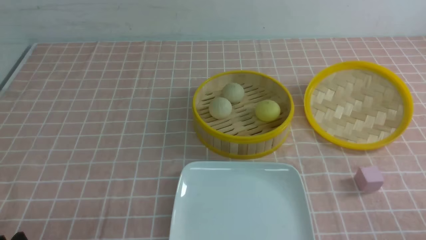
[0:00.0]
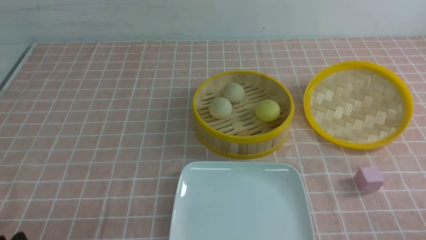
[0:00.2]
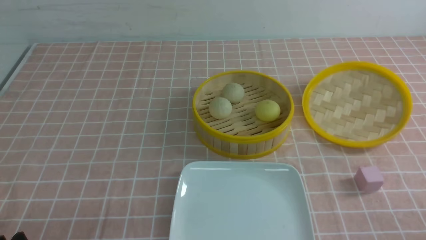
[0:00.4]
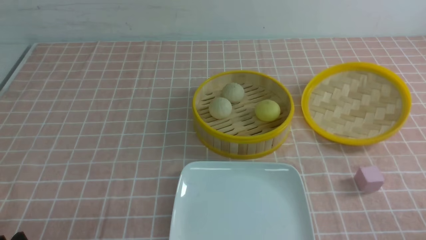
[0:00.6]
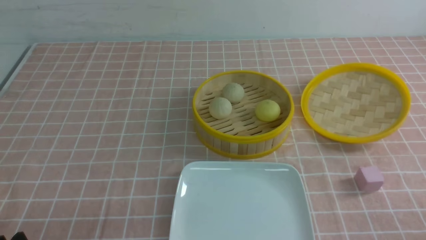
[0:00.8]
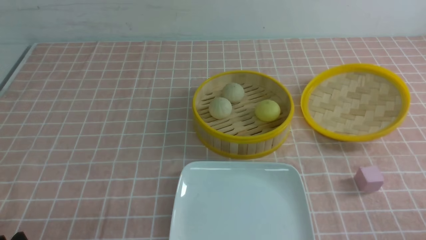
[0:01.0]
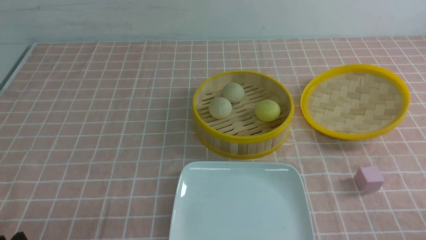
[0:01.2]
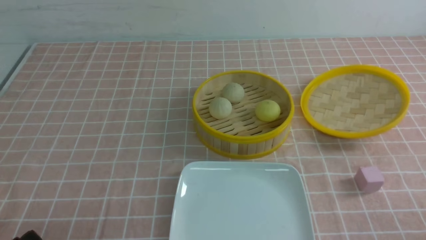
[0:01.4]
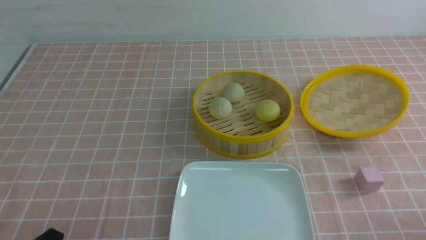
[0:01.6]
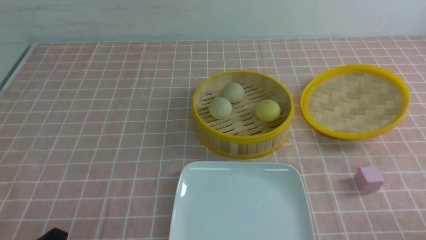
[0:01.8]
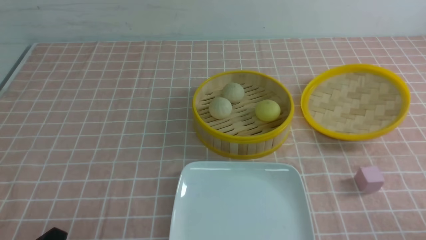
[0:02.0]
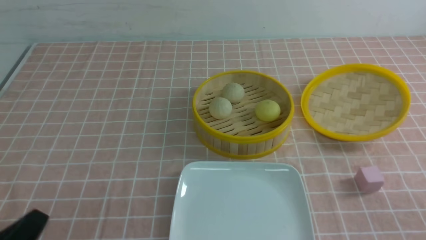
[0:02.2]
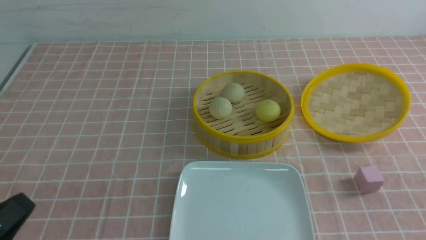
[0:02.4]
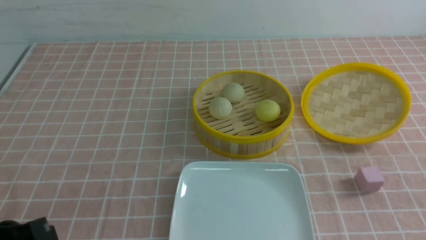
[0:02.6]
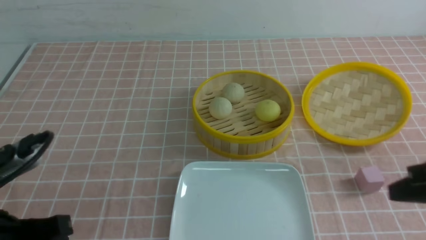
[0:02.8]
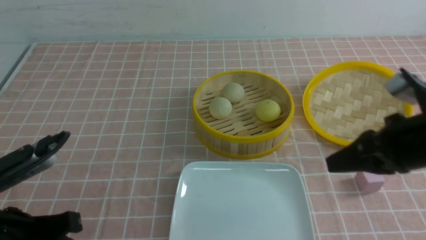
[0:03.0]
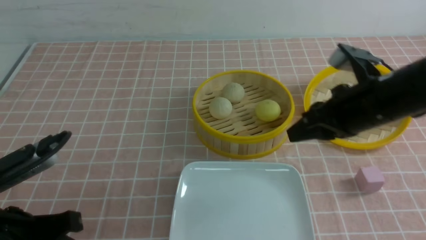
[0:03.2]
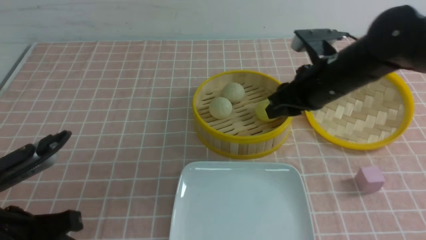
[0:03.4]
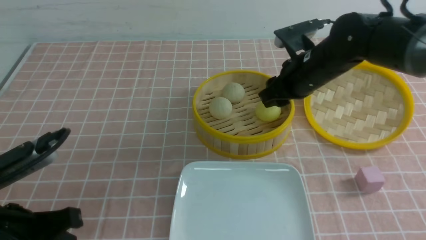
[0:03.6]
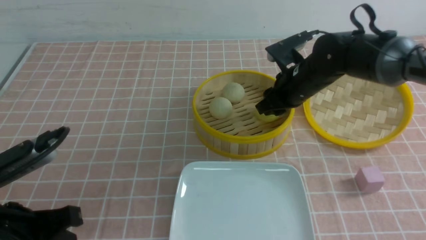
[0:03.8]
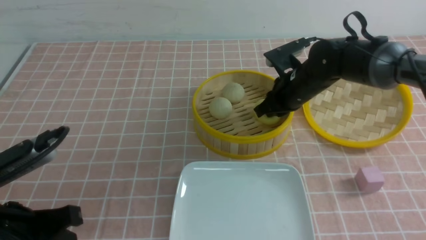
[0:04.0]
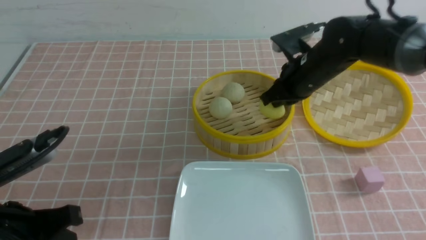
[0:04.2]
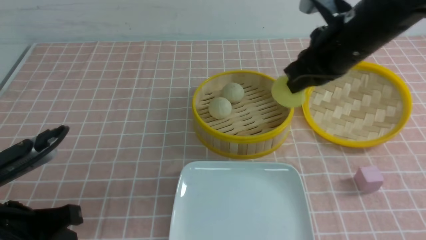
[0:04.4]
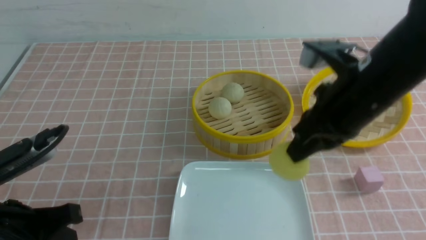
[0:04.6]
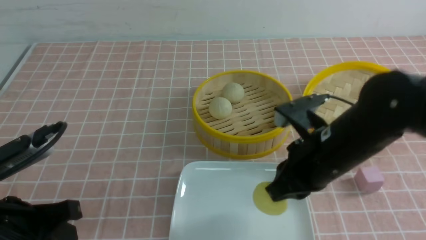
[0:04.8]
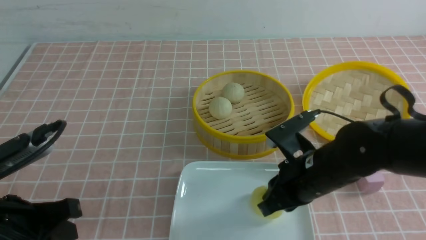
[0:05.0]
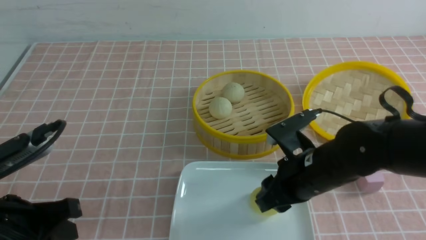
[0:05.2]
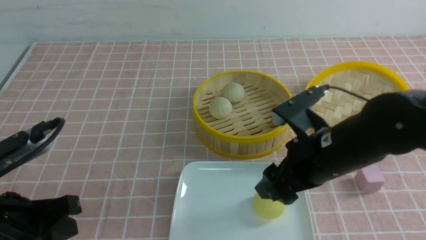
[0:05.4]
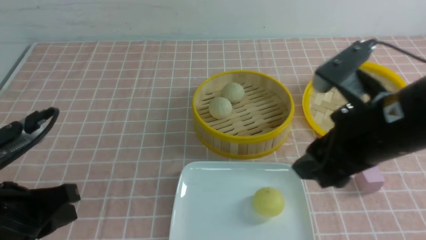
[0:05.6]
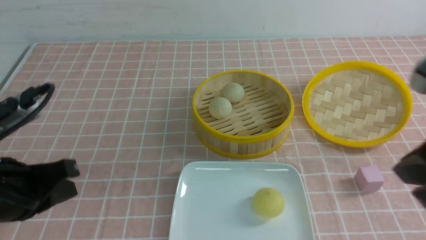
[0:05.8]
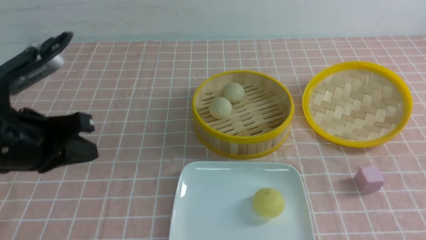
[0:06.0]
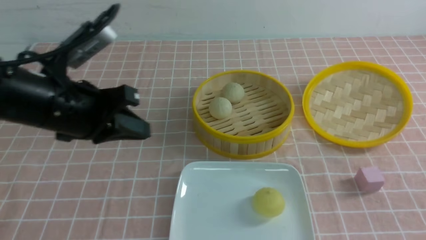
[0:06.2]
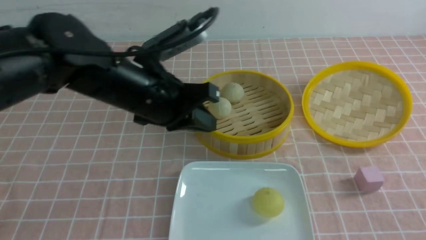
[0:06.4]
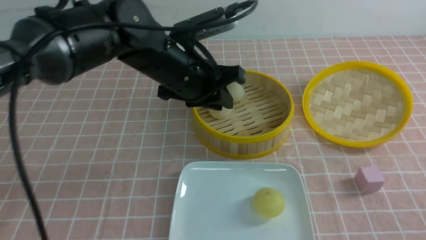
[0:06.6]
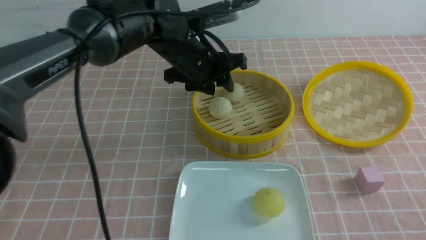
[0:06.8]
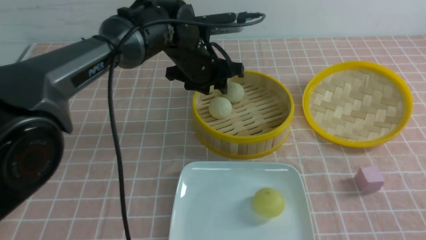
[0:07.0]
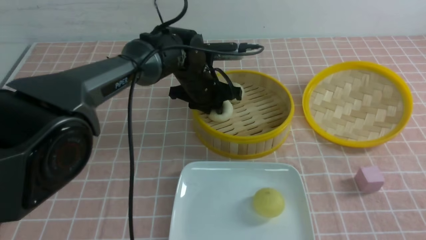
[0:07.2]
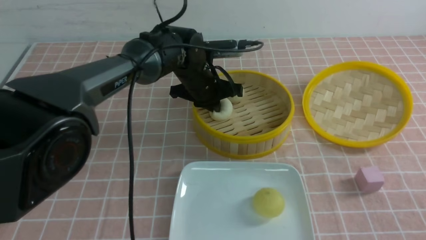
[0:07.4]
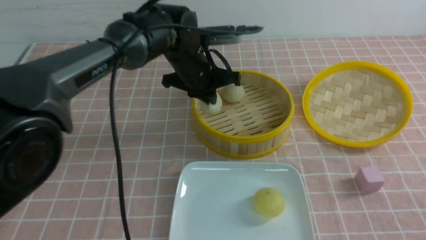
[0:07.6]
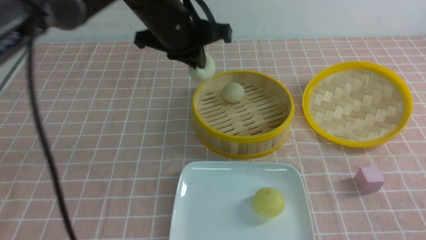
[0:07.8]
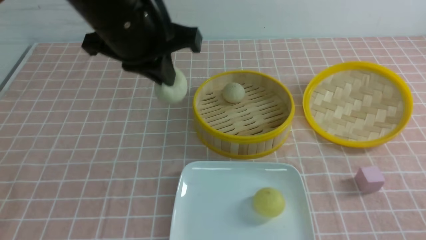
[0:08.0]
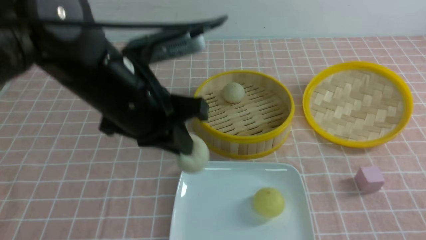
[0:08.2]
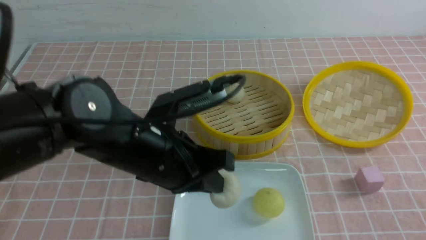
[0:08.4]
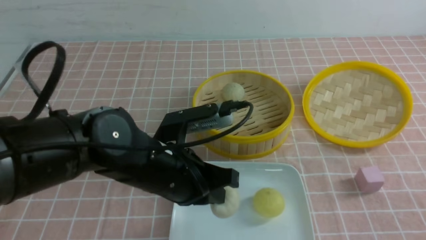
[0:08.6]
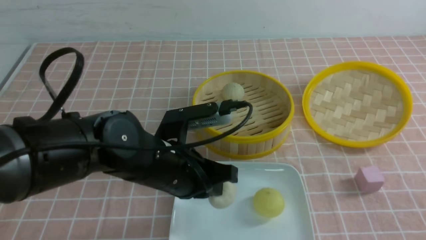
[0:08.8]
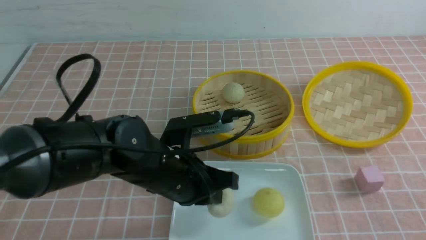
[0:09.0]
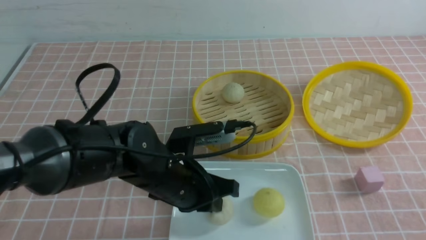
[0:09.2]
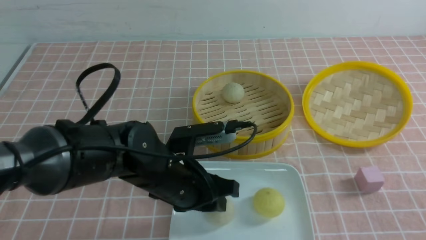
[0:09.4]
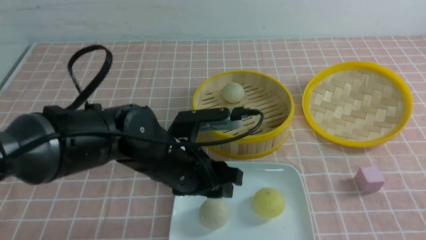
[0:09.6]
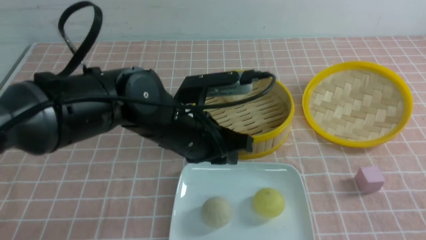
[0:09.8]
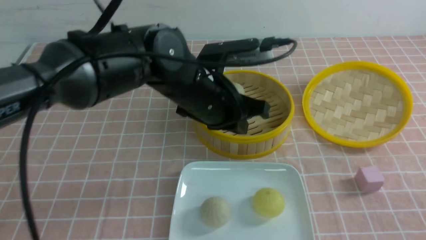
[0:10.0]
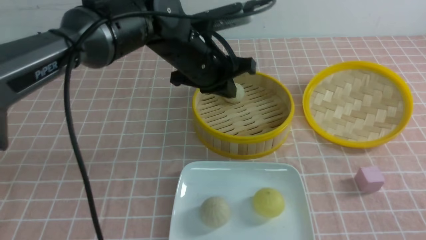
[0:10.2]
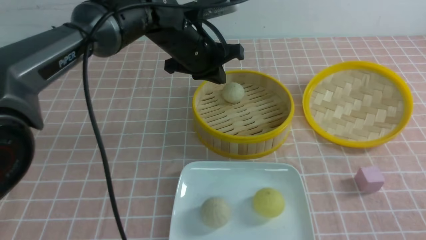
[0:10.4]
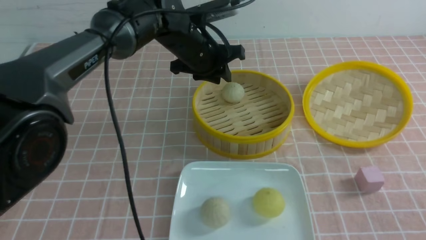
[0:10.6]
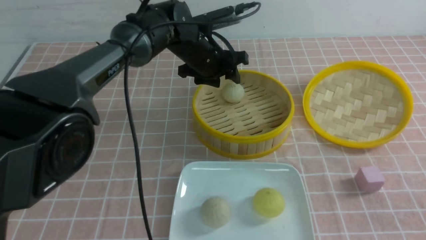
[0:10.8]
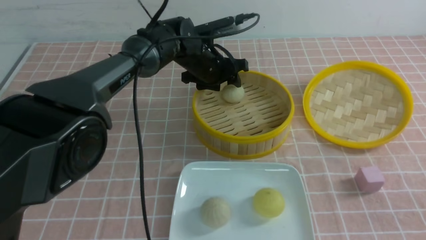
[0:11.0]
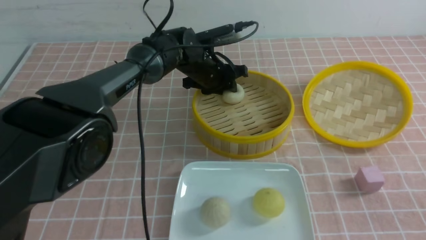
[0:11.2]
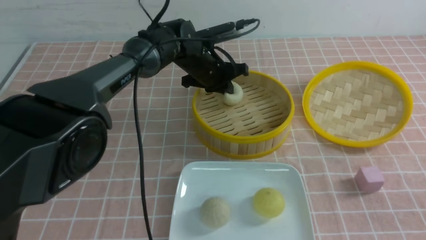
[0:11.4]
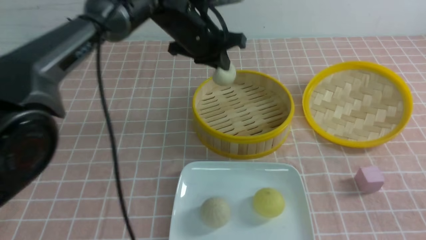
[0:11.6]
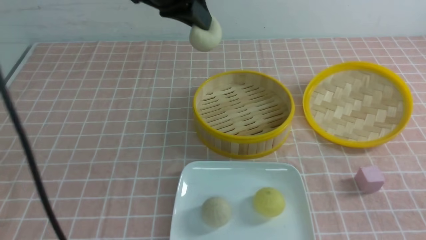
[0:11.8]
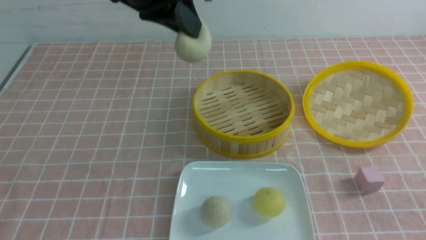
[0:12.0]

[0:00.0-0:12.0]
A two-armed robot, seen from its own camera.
Step, 0:00.0 to 0:04.0: use the right arm to grab the steamed stuffed bun that is closest to it.
Step, 0:04.2 to 0:05.2: use the right arm to put the steamed stuffed bun into the plate.
Step, 0:05.6 to 0:07.4: use the left arm to grab the steamed stuffed bun that is closest to it.
Step, 0:07.6 to 0:09.6: use the left arm to put the steamed stuffed bun into the plate.
Step, 0:09.8 to 0:11.2: use the left arm to grab the steamed stuffed bun that is closest to it.
0:01.6 to 0:03.0: The right gripper is displaced forward, upward and to the left by roughly 25 cm, and closes. The left gripper shifts some 10 cm upward and forward, and closes.
0:03.0 to 0:04.4: The right gripper moves forward and to the left, about 10 cm, and opens, then closes again.
0:04.4 to 0:06.0: The right gripper shifts some 25 cm backward and to the right, and opens and closes again, while the left gripper heads forward and upward, covering about 10 cm.
0:06.0 to 0:07.6: The right gripper is displaced downward by some 10 cm. The left gripper shifts roughly 25 cm forward and to the right, and opens and closes again.
0:07.6 to 0:09.0: The left gripper is displaced backward and downward by roughly 20 cm.
0:09.0 to 0:10.4: The left gripper shifts about 20 cm forward and upward, and opens, then closes again.
0:10.4 to 0:12.0: The left gripper is displaced upward and backward by roughly 15 cm, and opens, then closes again.

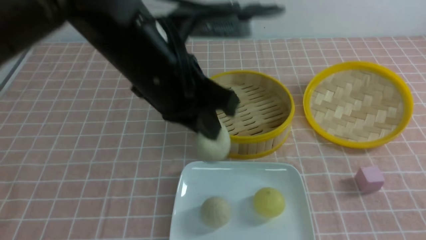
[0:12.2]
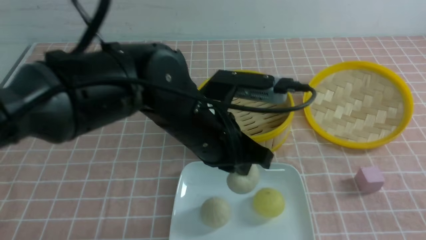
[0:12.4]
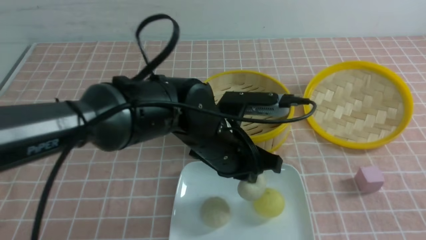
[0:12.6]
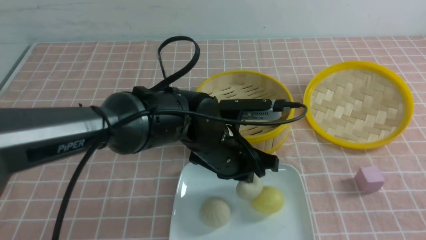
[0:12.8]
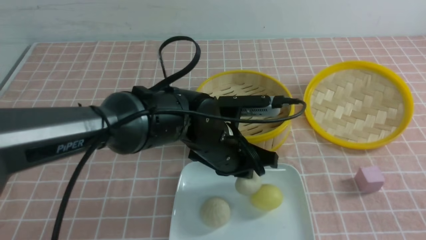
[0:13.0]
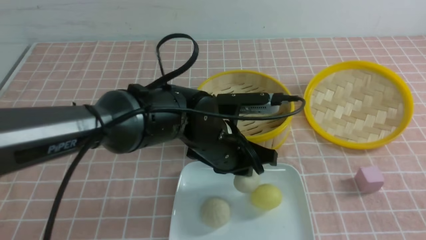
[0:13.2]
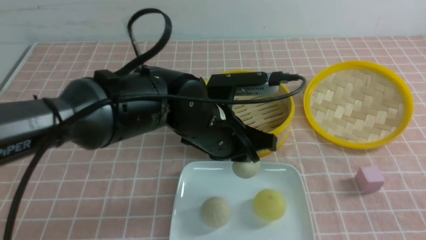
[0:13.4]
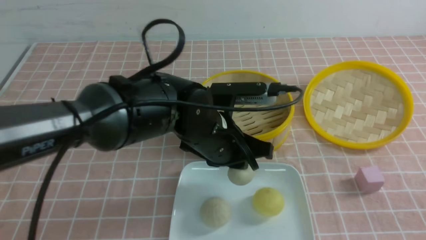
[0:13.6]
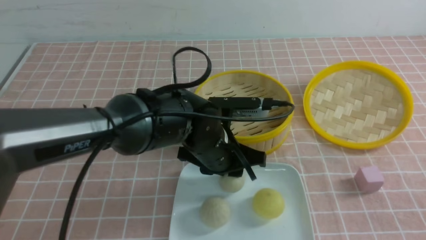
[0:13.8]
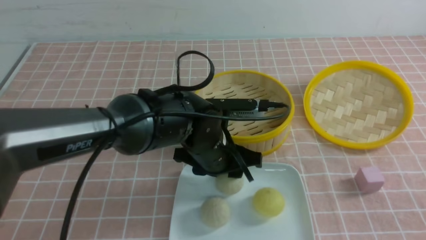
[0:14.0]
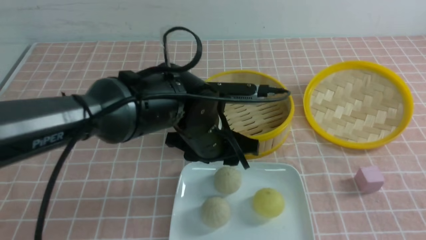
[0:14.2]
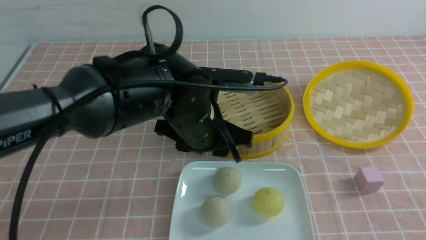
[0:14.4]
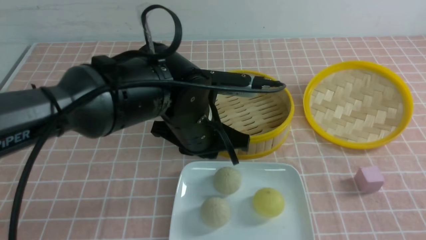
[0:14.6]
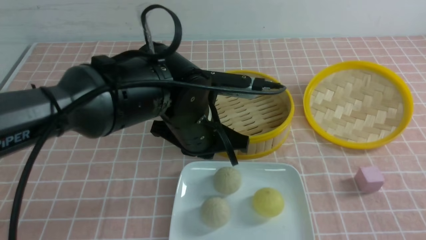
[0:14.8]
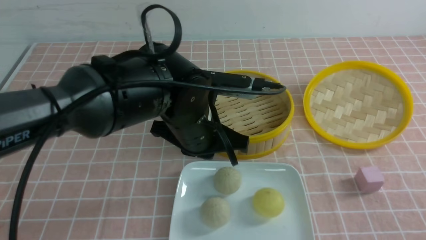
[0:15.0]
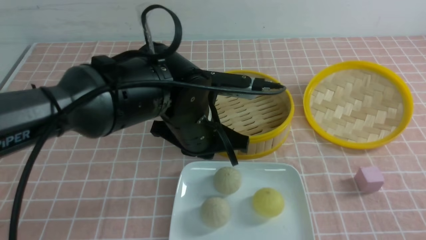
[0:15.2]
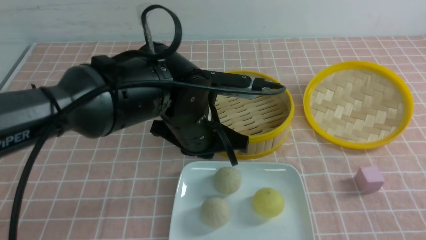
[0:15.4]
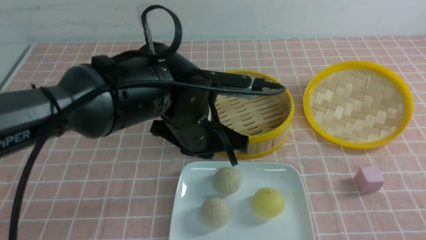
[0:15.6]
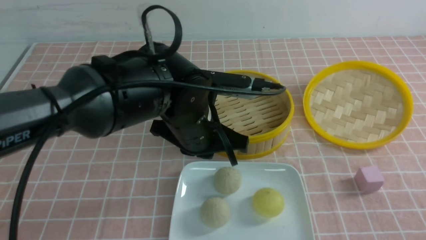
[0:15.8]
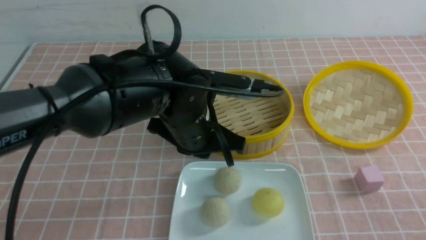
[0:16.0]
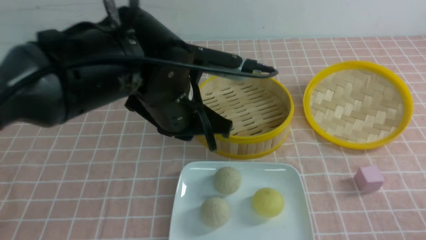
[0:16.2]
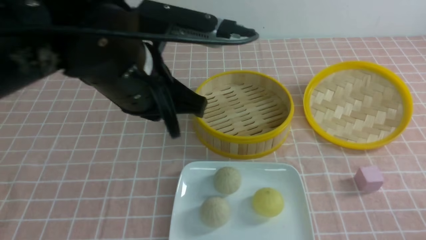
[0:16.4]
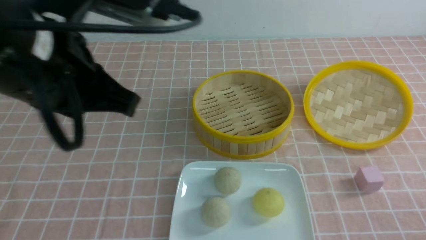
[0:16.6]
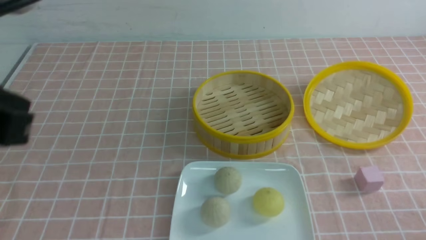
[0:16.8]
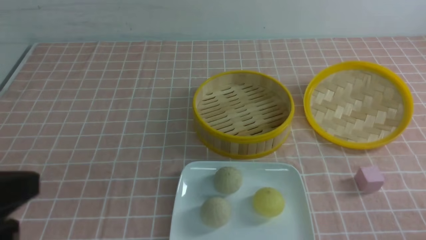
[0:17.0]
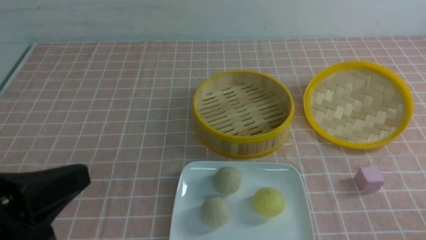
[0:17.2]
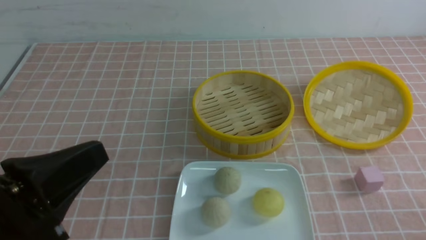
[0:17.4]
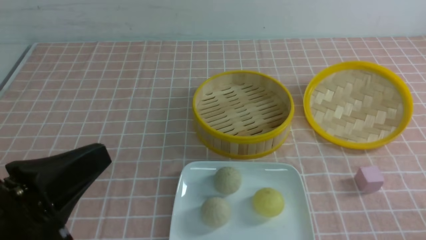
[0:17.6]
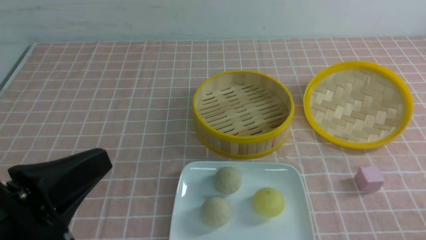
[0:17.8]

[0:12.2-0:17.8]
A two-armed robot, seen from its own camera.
Step, 0:12.2 to 0:14.0: use the left arm to put the steamed stuffed bun into the plate.
0:12.2 to 0:13.6: The left gripper travels downward by roughly 10 cm, and opens its fingers.
0:13.6 to 0:15.0: The left gripper closes; the right gripper shifts about 5 cm backward.
0:15.0 to 0:16.4: The right gripper shifts approximately 10 cm downward. The left gripper moves upward, to the left and backward, approximately 15 cm.
0:16.4 to 0:17.8: The left gripper heads backward, to the left and downward, covering some 20 cm.
